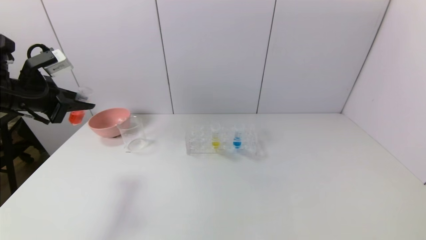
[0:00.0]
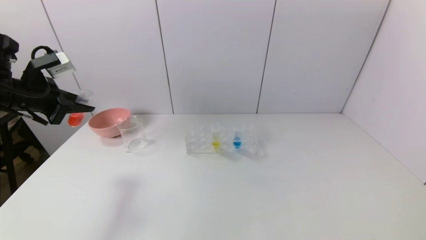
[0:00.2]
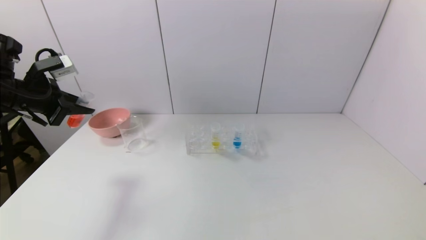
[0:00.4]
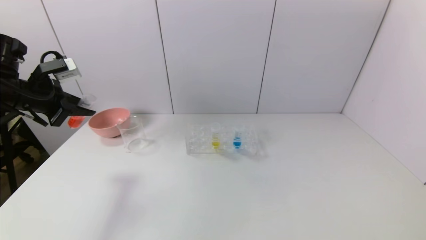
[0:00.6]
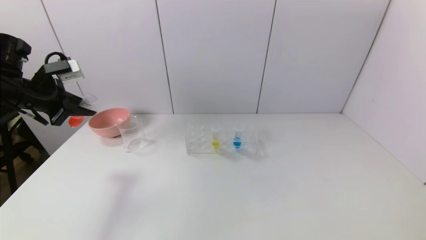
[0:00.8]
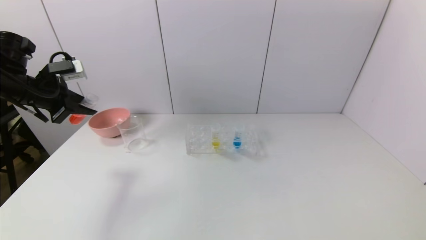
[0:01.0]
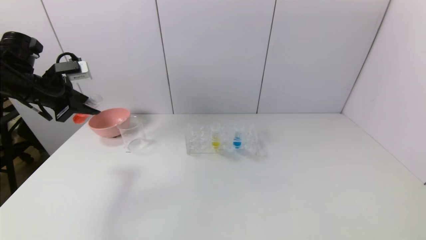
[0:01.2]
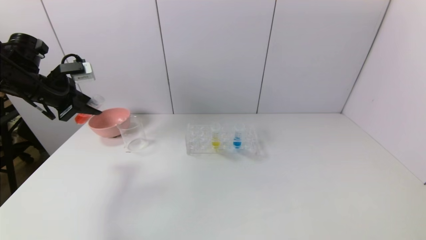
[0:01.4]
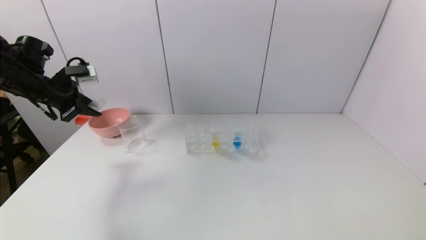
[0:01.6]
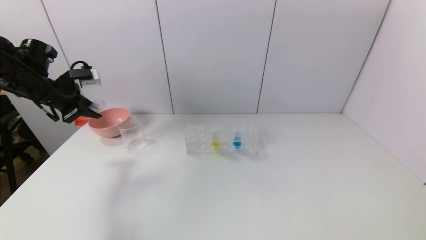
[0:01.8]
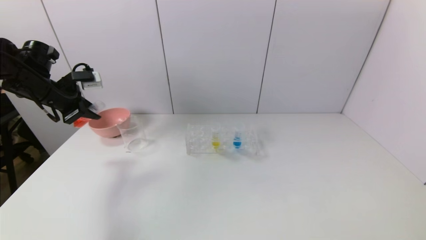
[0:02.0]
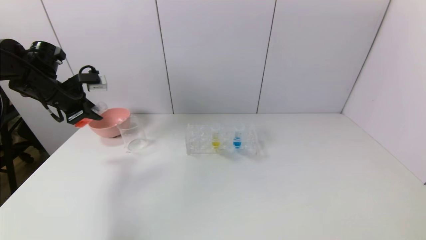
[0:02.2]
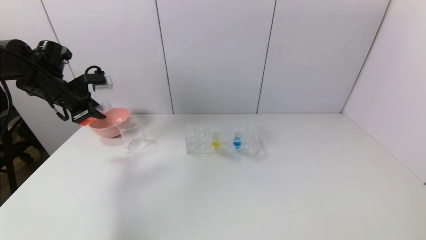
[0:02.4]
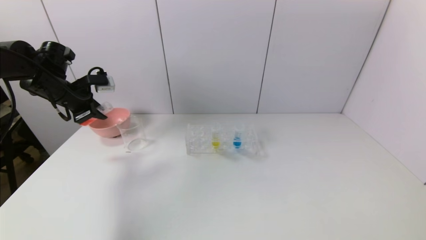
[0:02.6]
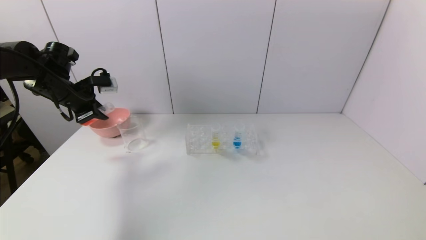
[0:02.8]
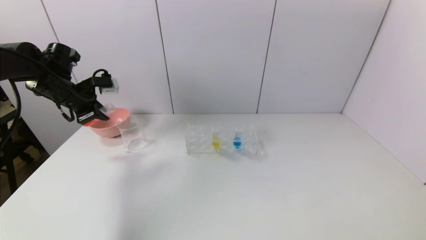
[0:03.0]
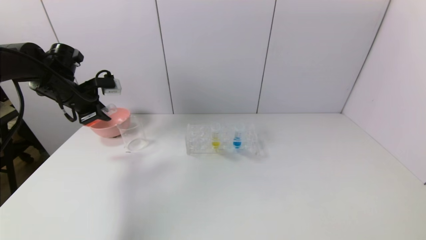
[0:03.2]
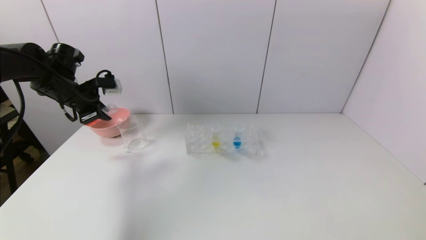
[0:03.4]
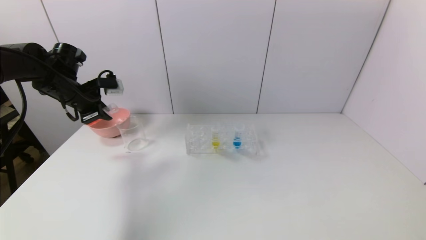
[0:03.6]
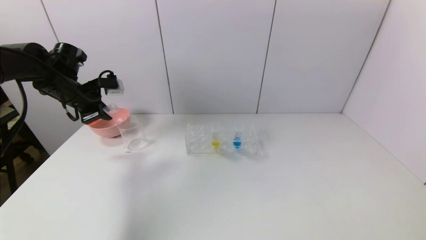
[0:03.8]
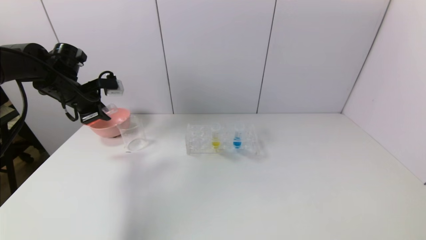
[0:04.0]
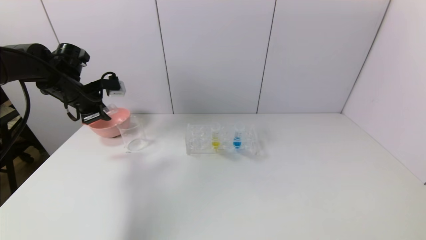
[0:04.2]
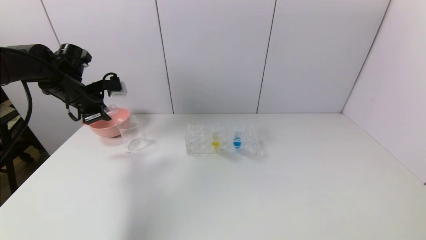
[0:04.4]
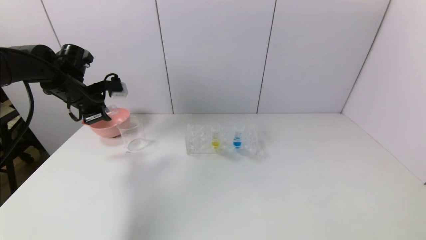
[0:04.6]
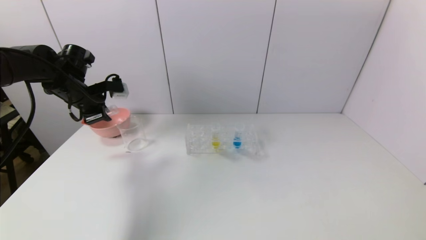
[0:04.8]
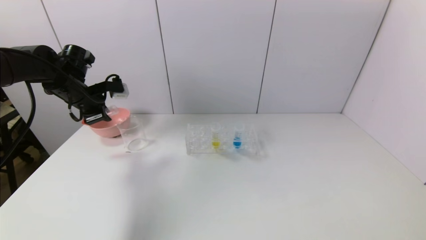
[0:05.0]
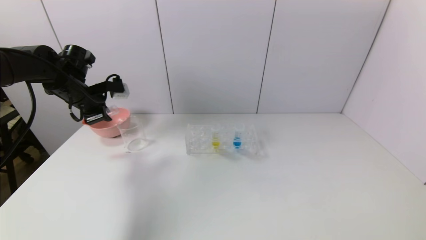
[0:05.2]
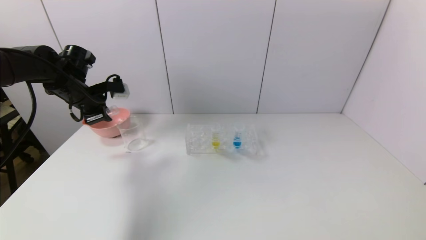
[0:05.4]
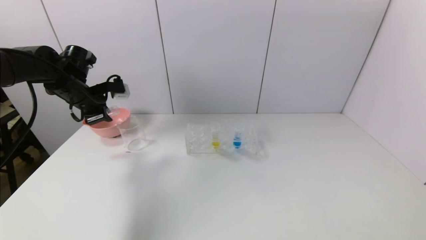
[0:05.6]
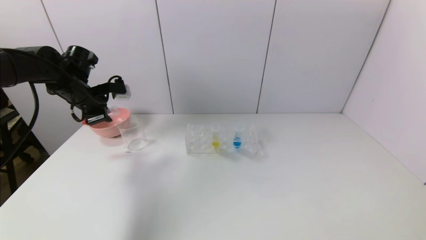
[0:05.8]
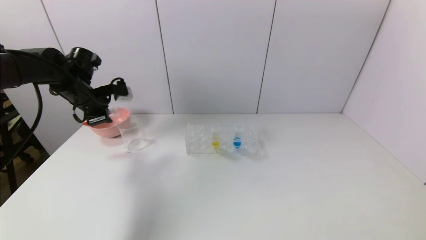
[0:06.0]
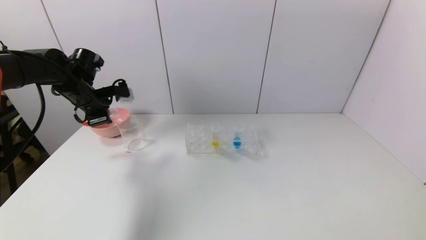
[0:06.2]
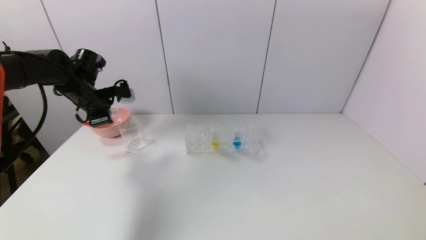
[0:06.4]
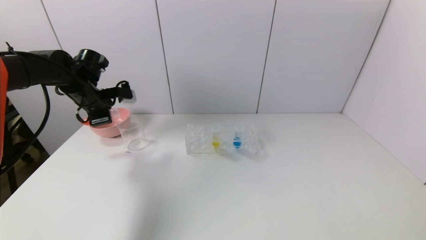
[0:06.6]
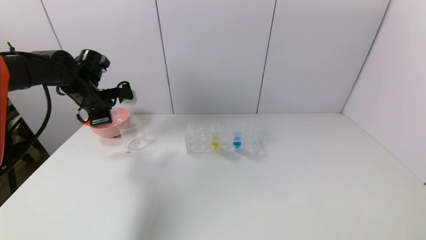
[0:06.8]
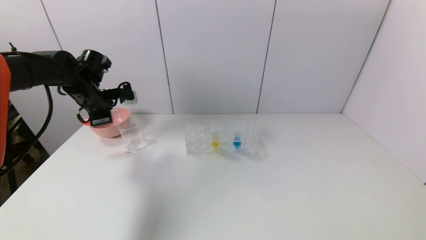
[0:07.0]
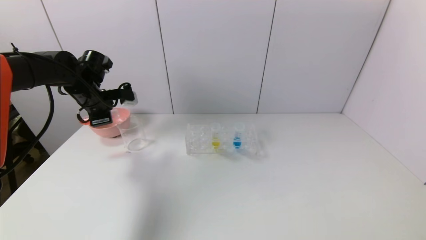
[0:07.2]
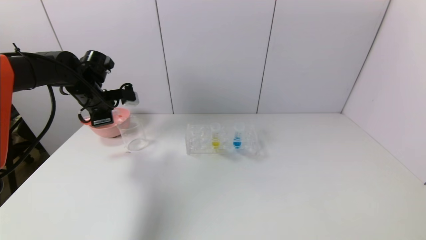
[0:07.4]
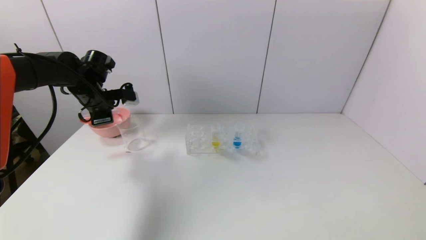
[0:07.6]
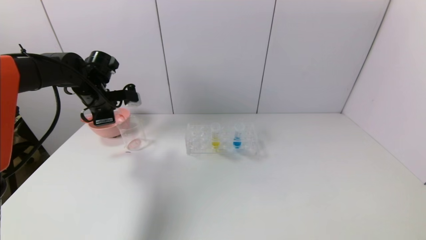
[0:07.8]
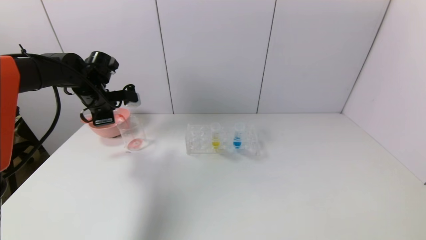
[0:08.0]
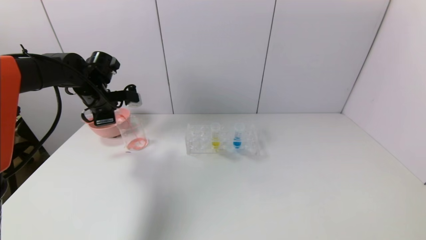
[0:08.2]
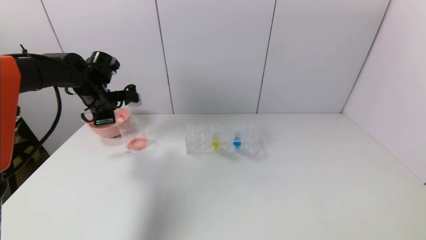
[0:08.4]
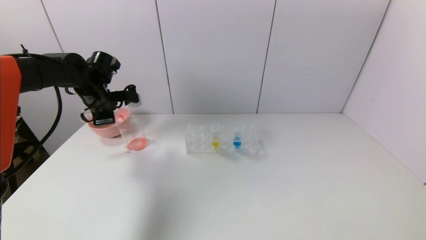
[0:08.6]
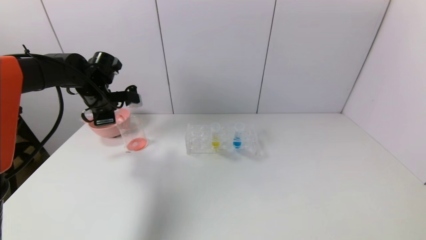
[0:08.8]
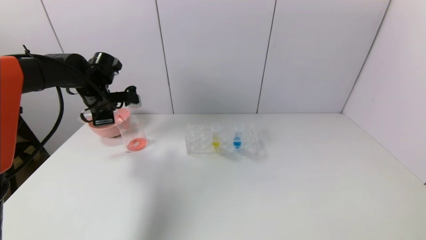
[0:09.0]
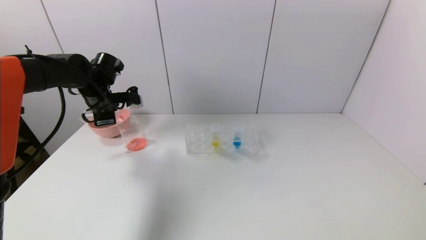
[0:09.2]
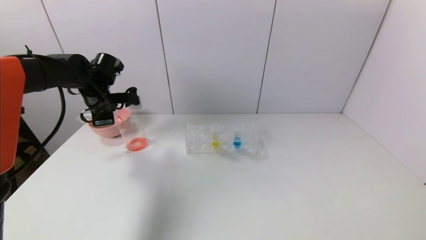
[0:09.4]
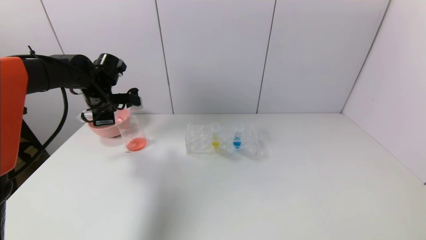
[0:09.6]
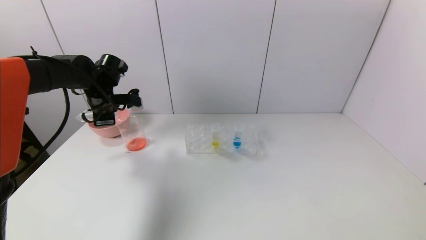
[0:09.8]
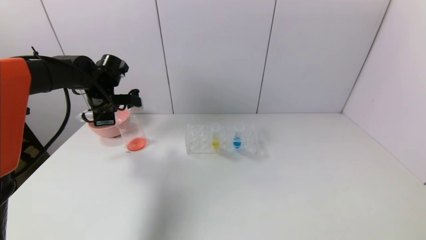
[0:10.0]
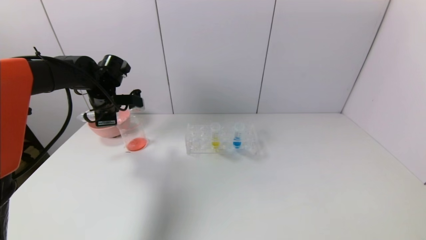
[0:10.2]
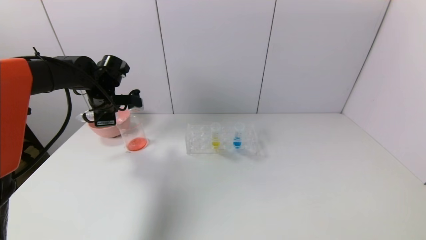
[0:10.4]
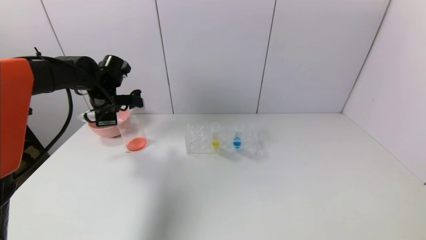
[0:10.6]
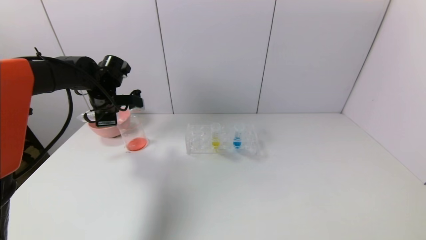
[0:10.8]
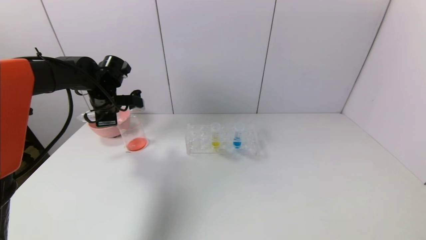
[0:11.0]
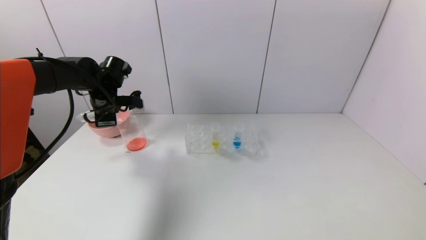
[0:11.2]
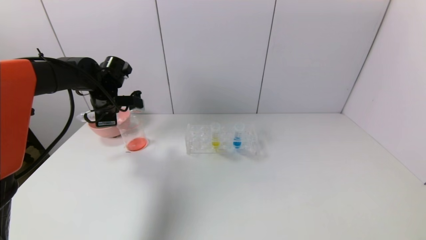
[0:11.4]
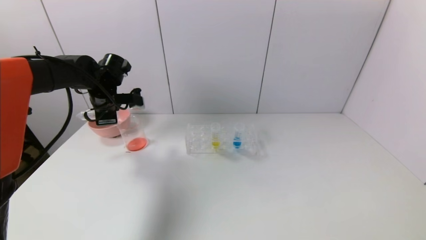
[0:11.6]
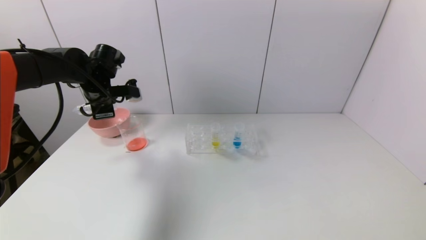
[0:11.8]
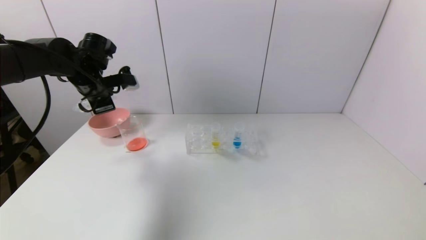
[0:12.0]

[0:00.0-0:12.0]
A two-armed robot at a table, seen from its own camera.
Task of the whole recording: pick up the test tube with red pigment and the test tube with blue pigment by grippers and pour them into the container.
Step, 0:00.0 to 0:12.0: Pour the red reagent into the graduated cylinder with the left gripper.
0:00.0 to 0:01.6: The left gripper travels forward by roughly 5 cm.
0:01.6 to 0:04.4: The grippers stay close to where they were, moving slightly.
0:04.4 to 0:07.6: There are only small adjustments of the grippers.
0:07.6 to 0:10.4: The grippers move only a little.
0:10.4 to 0:12.0: The left gripper ends up roughly 5 cm from where it was.

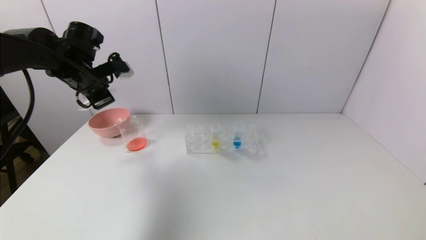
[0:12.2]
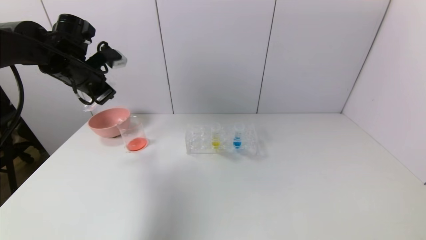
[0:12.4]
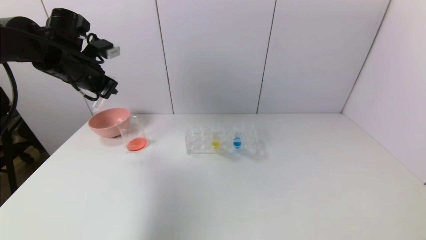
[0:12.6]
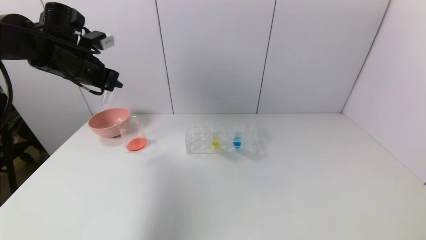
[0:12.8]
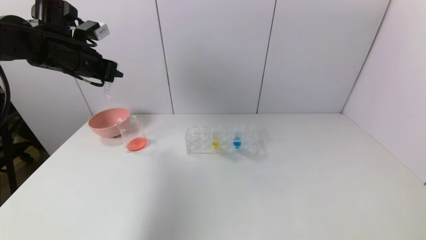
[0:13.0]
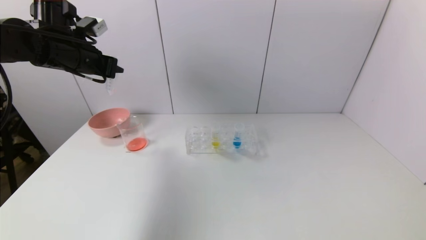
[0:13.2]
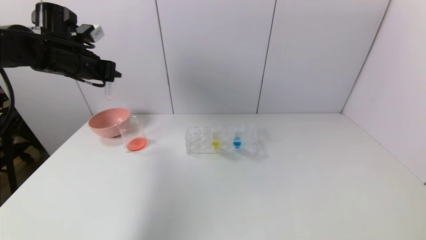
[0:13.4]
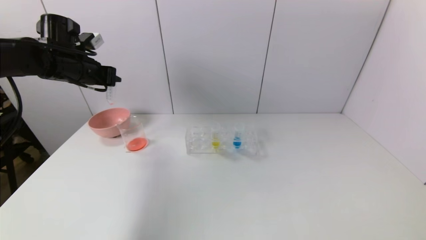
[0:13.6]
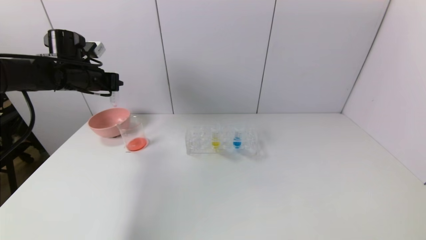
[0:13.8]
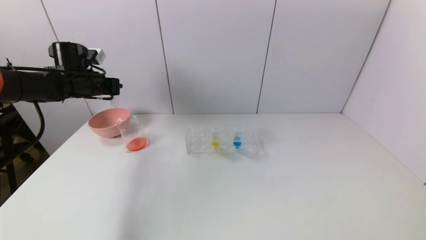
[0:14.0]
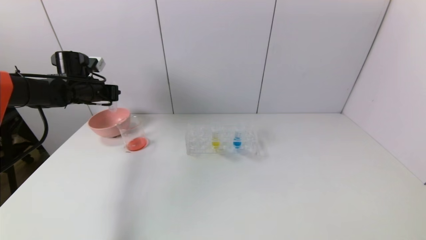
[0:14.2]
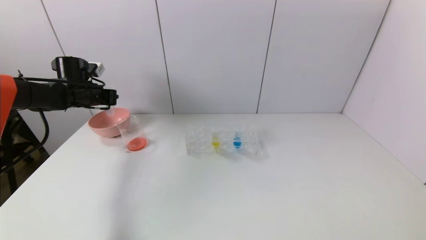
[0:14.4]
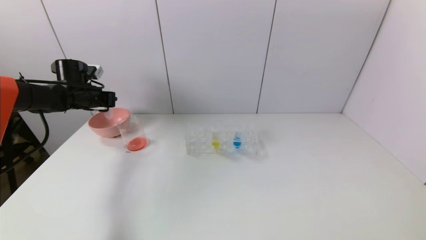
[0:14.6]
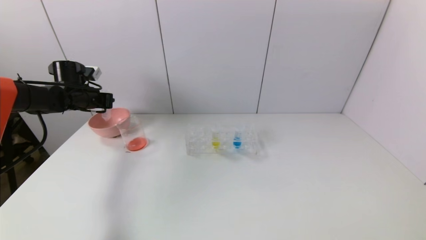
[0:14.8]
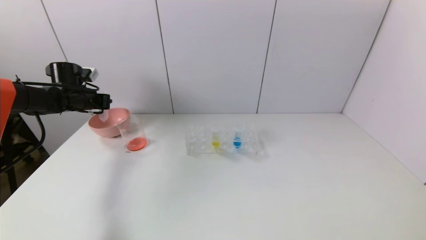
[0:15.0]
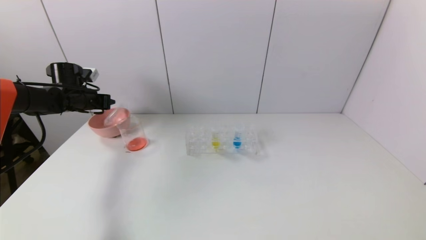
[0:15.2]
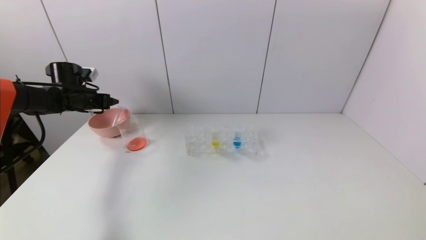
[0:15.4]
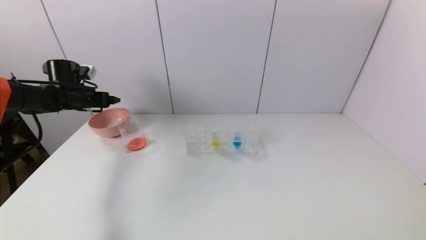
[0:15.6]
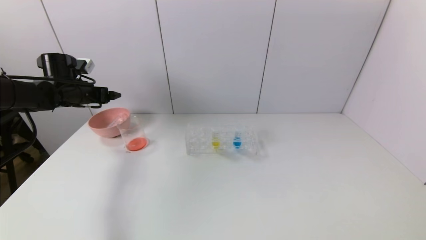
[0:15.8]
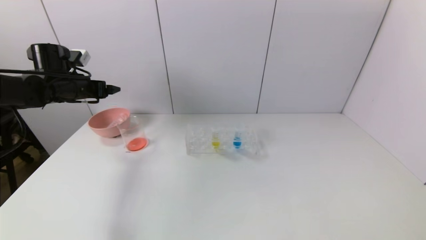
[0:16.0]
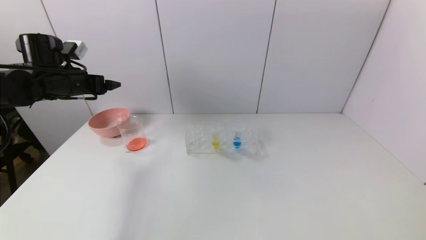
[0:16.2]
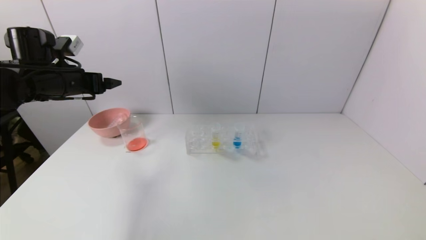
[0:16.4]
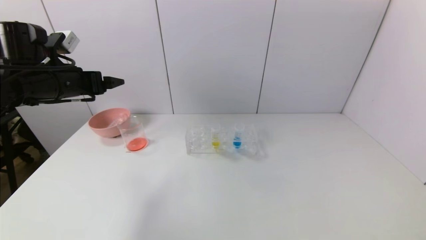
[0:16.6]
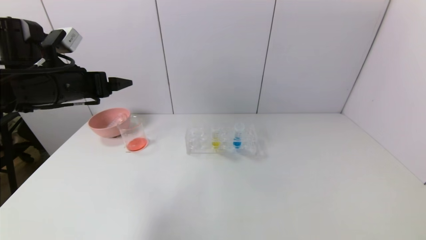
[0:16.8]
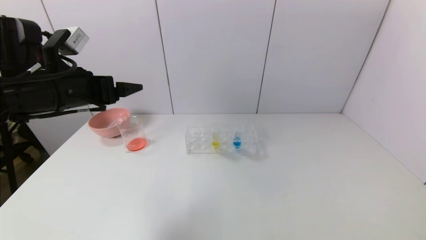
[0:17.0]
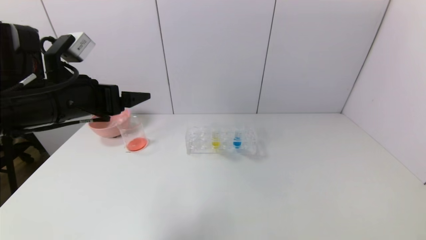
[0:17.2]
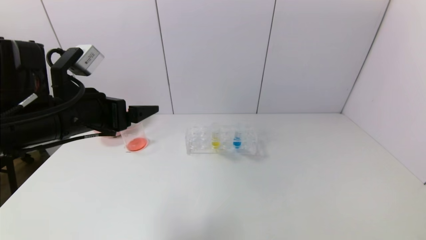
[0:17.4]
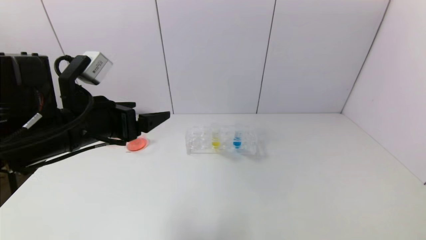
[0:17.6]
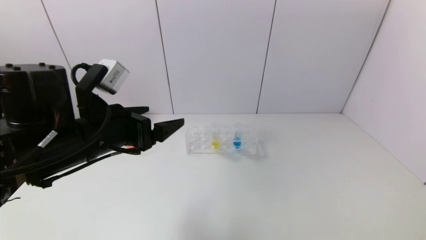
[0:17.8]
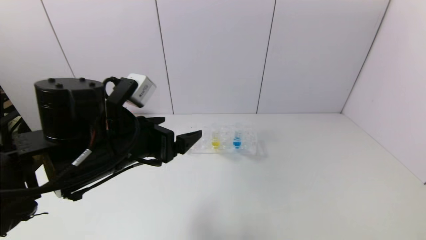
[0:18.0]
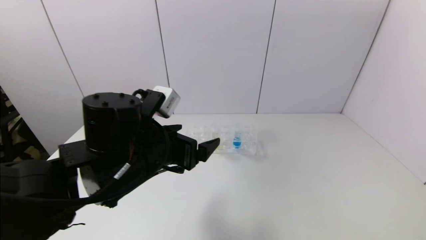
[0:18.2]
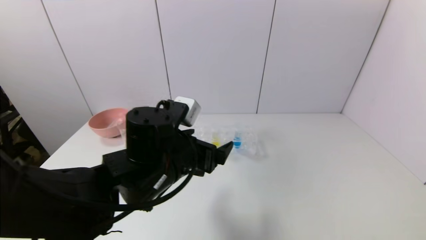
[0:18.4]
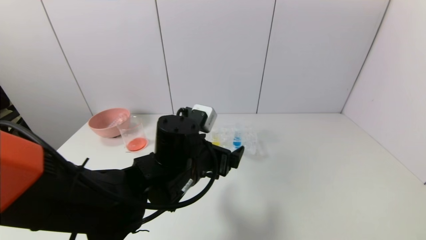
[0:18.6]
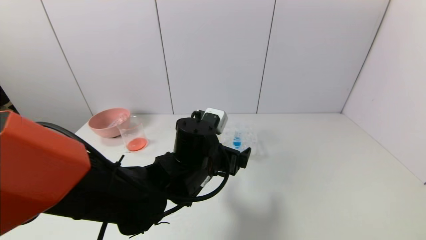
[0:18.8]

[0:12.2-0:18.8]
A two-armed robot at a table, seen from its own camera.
Task of the whole recording: pick up the test tube with red pigment and the test tube with blue pigment by grippers and pour them into the container.
Step, 0:12.2 to 0:15.6: Place the test tube into the bowl with the left gripper.
0:12.2 to 0:13.8: The left gripper ends up approximately 5 cm from where it was.
0:13.8 to 0:15.4: The left gripper goes some 10 cm downward and to the left, and opens.
0:15.4 to 0:17.2: The left gripper moves backward, to the right and upward, some 30 cm.
0:17.2 to 0:18.8: The left gripper travels to the right and downward by roughly 25 cm.
